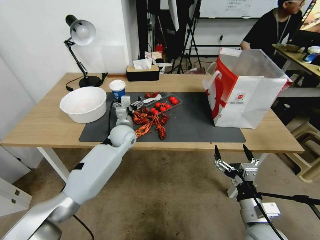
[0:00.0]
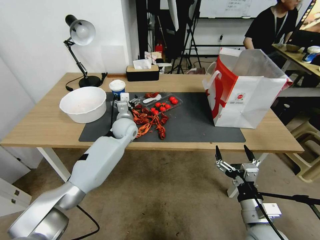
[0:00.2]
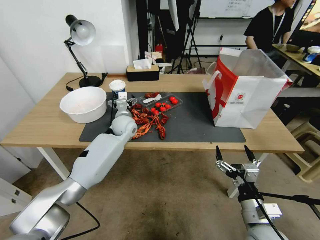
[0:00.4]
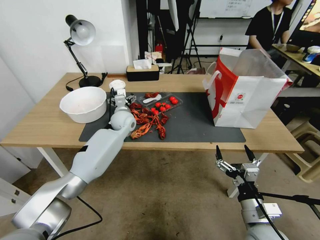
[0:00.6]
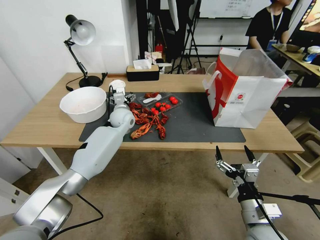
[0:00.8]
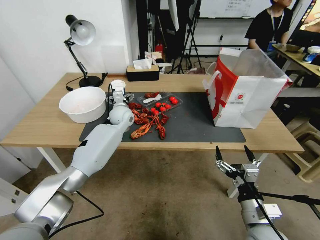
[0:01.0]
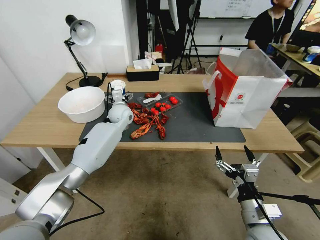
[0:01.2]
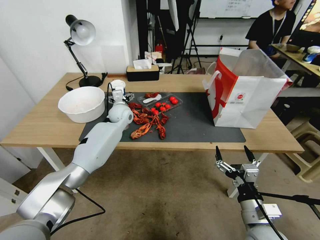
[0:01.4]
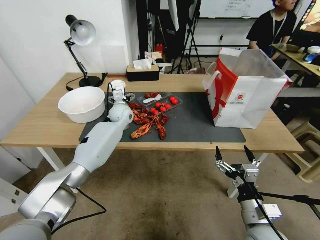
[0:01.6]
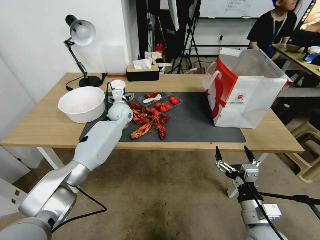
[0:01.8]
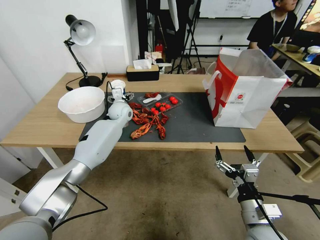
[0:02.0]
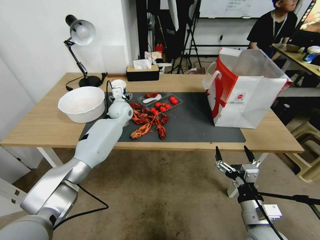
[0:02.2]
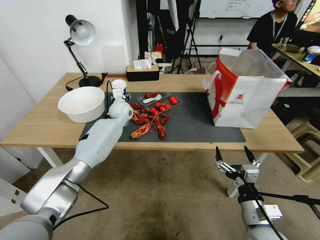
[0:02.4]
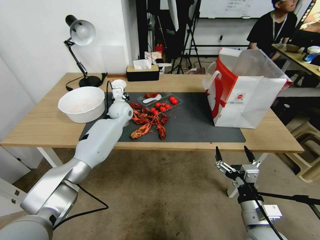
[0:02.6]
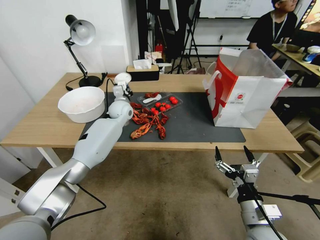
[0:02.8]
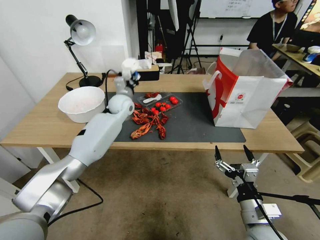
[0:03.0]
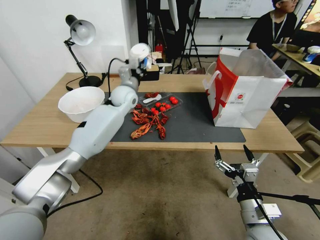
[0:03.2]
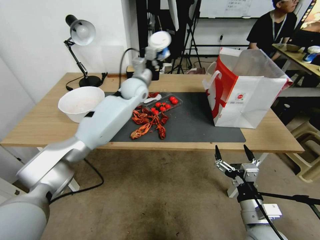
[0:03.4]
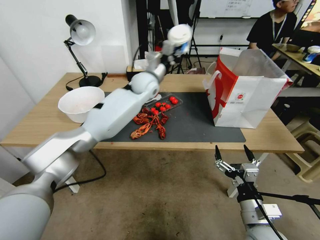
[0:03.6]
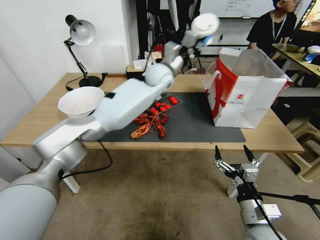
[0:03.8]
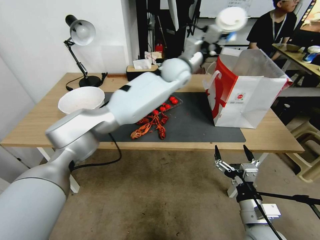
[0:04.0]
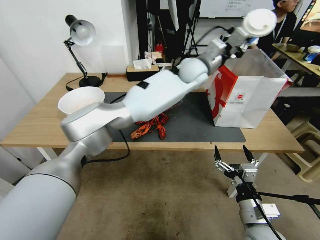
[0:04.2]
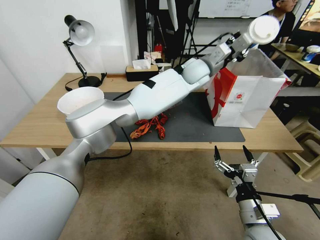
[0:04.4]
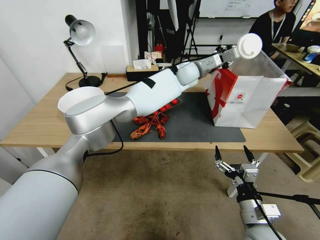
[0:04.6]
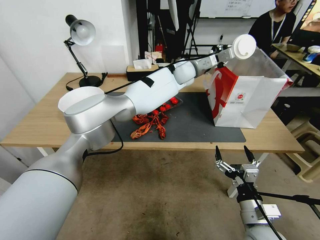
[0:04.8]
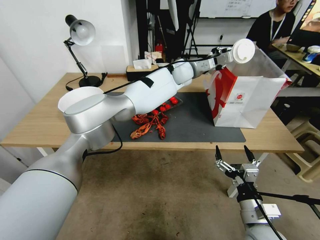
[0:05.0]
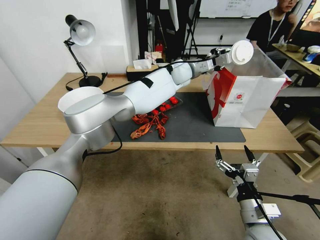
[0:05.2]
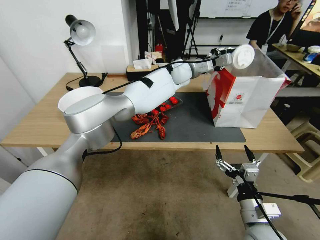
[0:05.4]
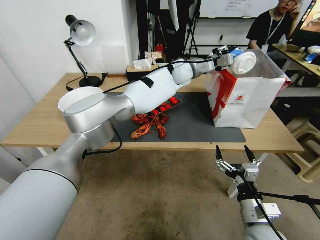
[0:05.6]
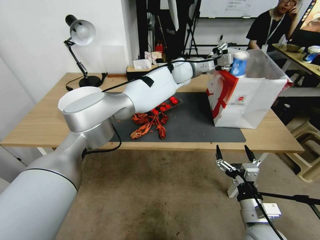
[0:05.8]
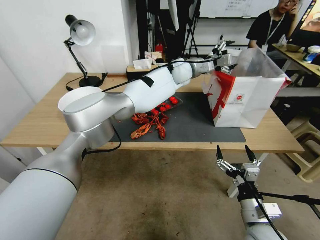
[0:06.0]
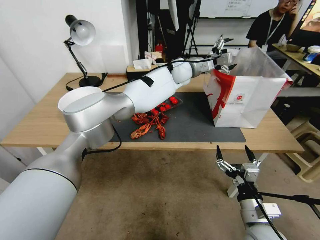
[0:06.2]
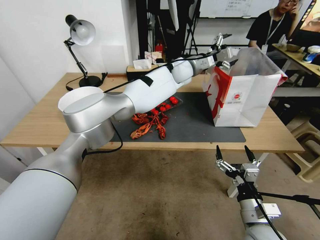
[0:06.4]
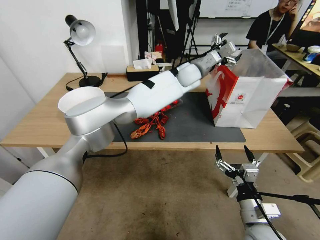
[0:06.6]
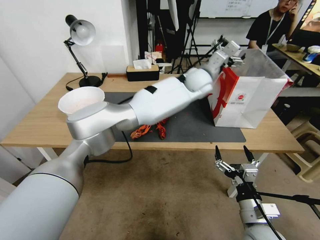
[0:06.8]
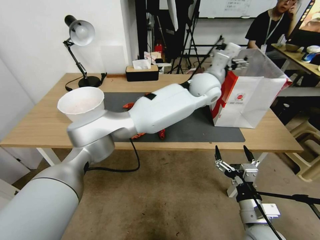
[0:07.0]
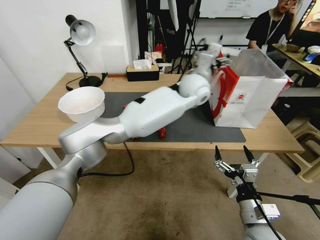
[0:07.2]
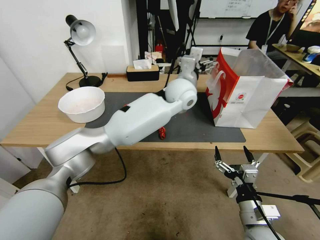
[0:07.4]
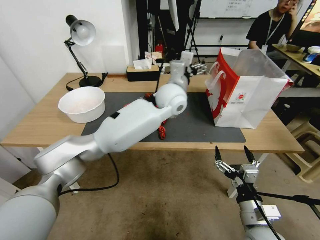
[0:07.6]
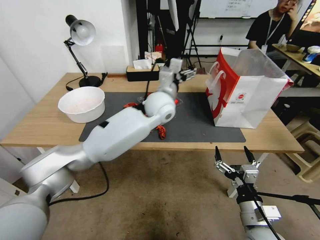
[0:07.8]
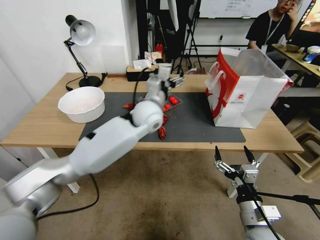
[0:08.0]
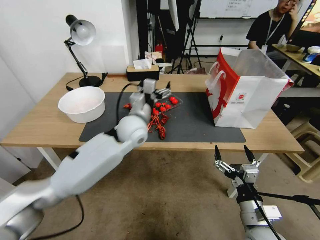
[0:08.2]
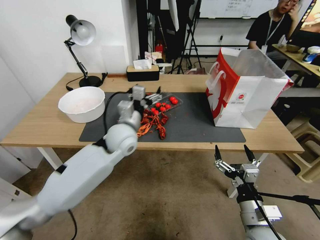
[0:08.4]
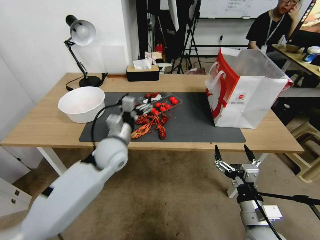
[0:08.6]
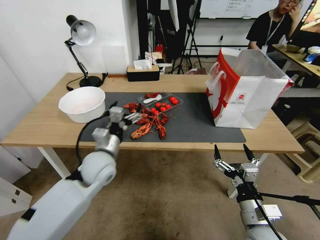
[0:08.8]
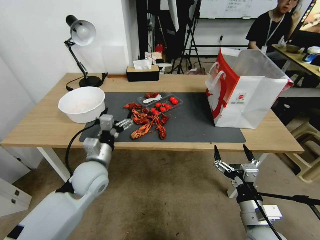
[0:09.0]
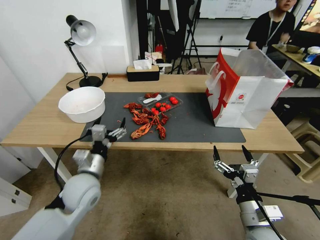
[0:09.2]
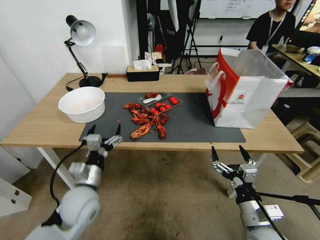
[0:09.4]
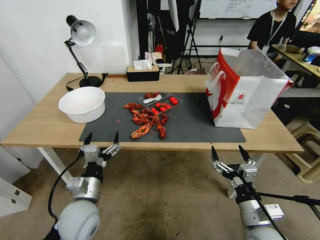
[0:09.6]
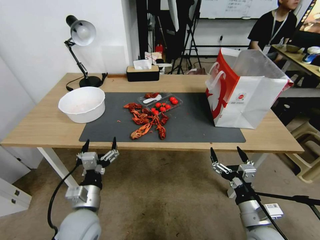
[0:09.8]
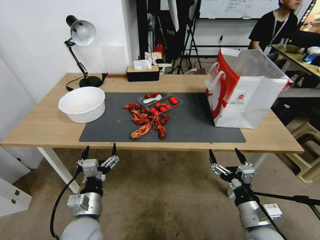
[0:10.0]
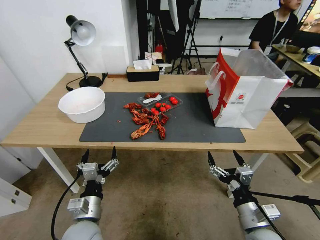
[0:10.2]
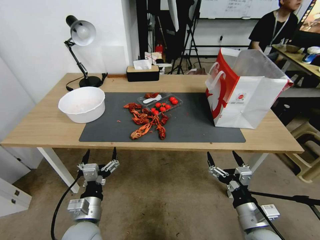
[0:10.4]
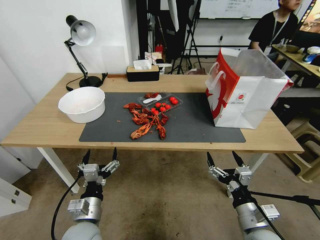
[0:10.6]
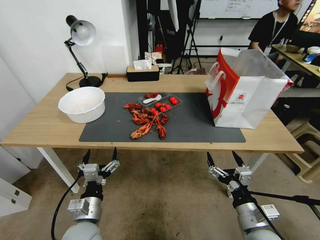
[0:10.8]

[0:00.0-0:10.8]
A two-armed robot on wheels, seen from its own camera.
0:00.0 to 0:01.6: The left gripper shifts about 10 cm forward.
0:01.6 to 0:03.0: The left gripper heads upward, covering approximately 5 cm, and closes.
0:03.0 to 0:04.6: The left gripper is displaced to the right and upward by some 30 cm.
0:04.6 to 0:06.2: The left gripper opens up.
0:06.2 to 0:07.8: The left gripper is displaced backward by approximately 15 cm.
0:07.8 to 0:09.2: The left gripper moves to the left, backward and downward, some 35 cm.
0:09.2 to 0:10.8: The left gripper goes some 10 cm backward and downward.
